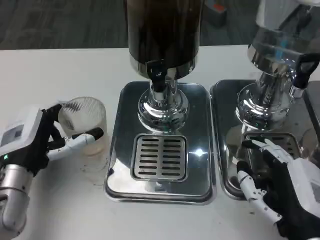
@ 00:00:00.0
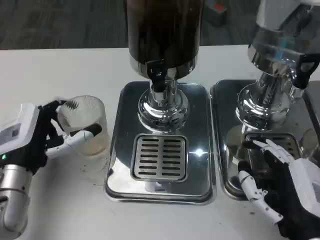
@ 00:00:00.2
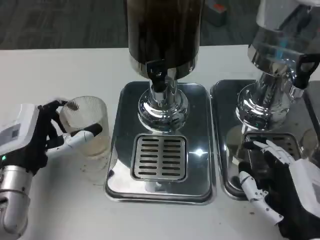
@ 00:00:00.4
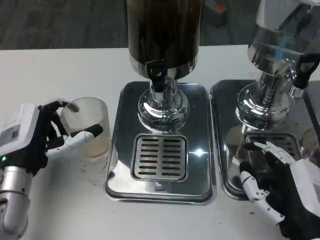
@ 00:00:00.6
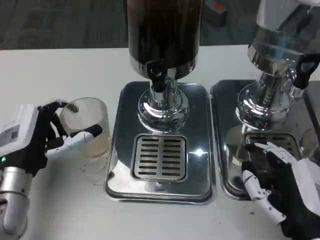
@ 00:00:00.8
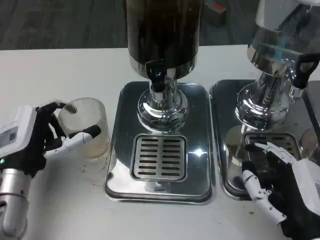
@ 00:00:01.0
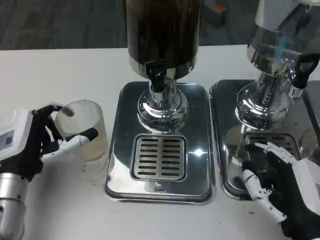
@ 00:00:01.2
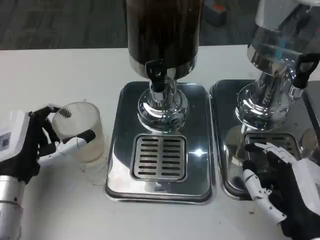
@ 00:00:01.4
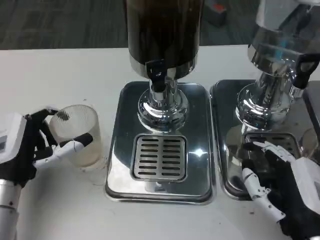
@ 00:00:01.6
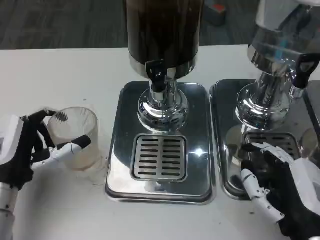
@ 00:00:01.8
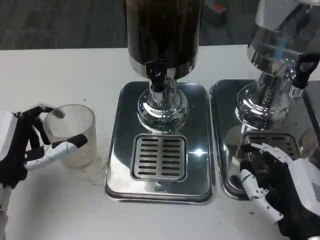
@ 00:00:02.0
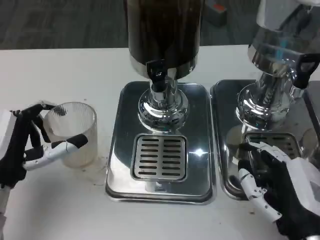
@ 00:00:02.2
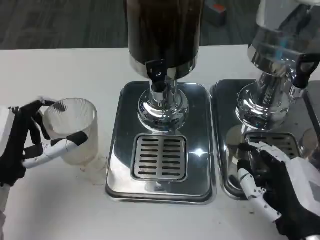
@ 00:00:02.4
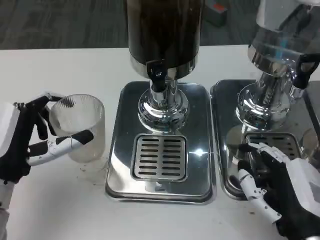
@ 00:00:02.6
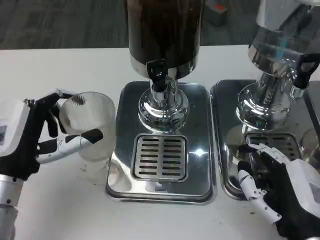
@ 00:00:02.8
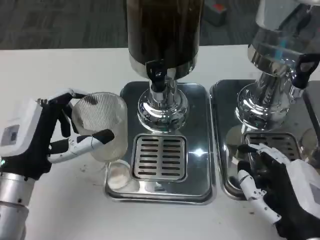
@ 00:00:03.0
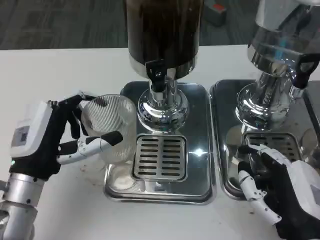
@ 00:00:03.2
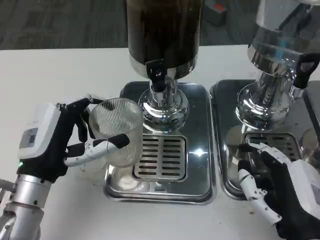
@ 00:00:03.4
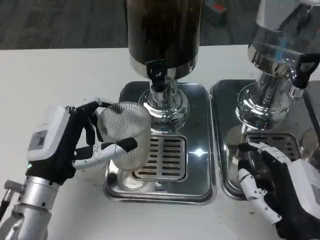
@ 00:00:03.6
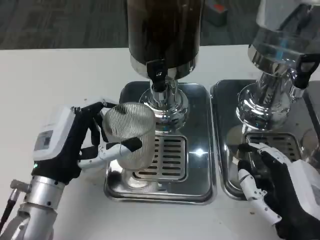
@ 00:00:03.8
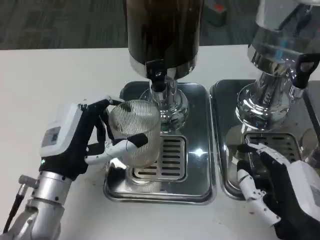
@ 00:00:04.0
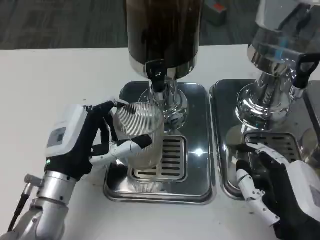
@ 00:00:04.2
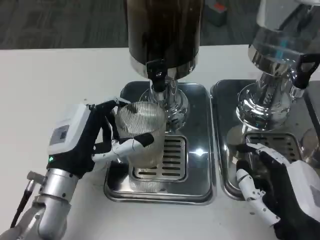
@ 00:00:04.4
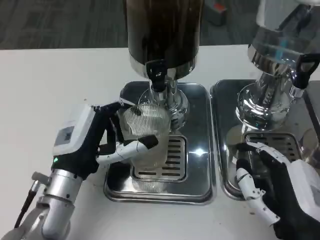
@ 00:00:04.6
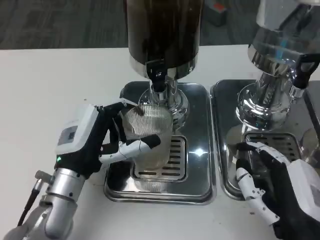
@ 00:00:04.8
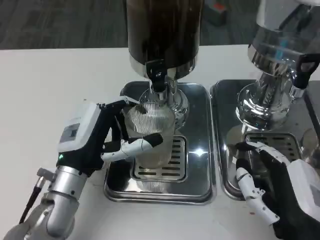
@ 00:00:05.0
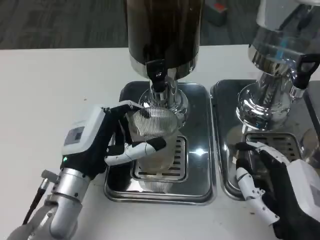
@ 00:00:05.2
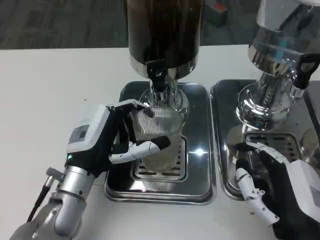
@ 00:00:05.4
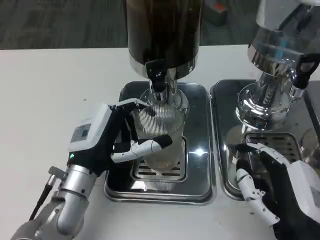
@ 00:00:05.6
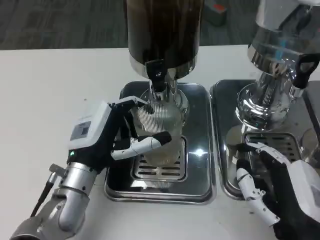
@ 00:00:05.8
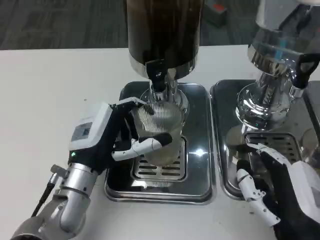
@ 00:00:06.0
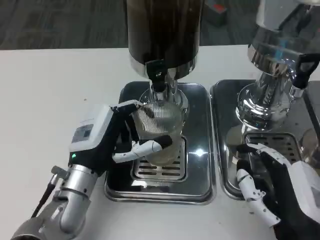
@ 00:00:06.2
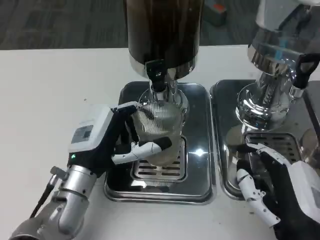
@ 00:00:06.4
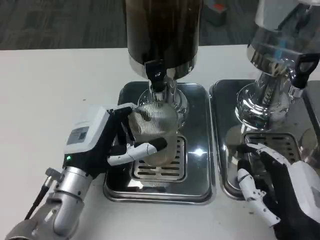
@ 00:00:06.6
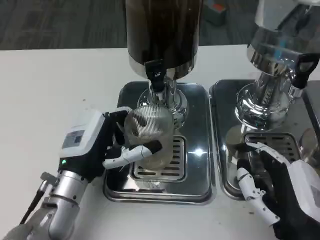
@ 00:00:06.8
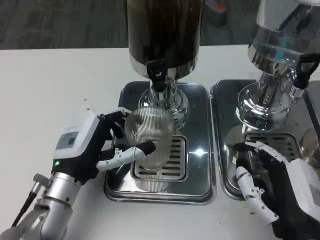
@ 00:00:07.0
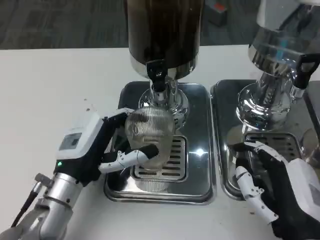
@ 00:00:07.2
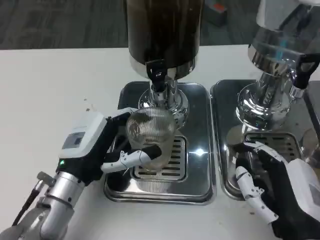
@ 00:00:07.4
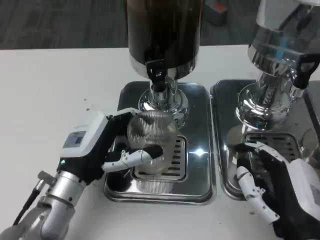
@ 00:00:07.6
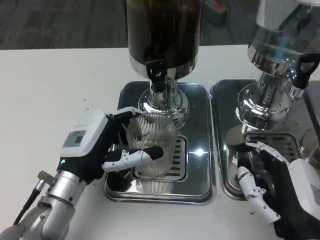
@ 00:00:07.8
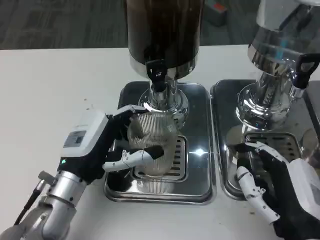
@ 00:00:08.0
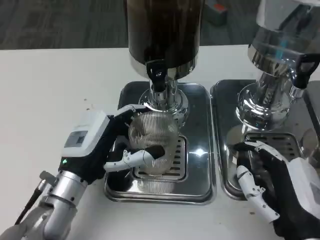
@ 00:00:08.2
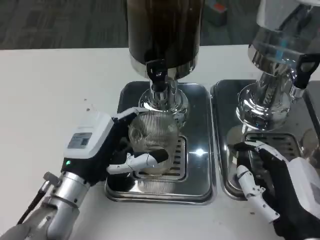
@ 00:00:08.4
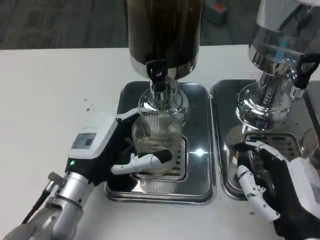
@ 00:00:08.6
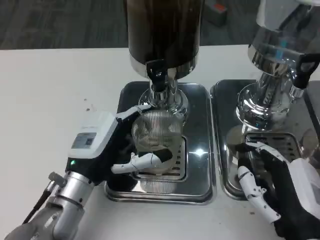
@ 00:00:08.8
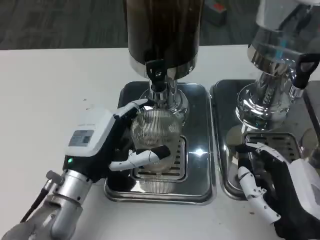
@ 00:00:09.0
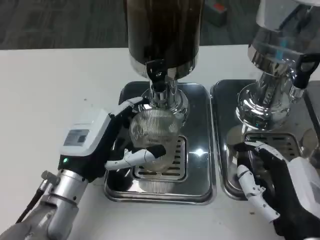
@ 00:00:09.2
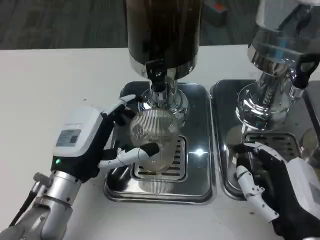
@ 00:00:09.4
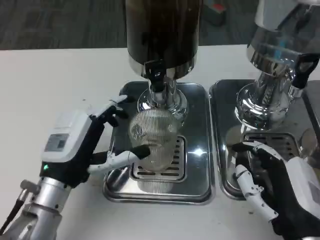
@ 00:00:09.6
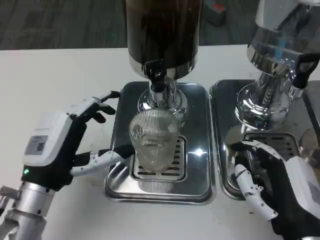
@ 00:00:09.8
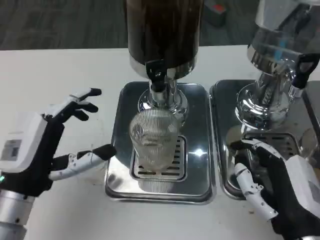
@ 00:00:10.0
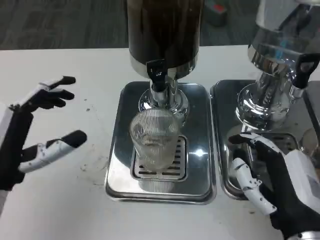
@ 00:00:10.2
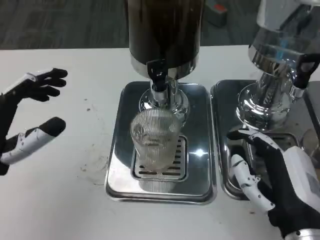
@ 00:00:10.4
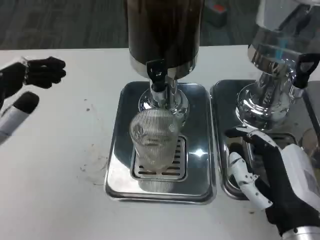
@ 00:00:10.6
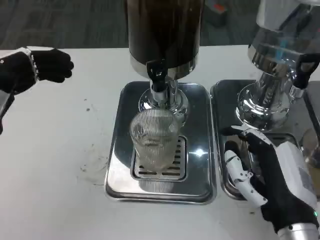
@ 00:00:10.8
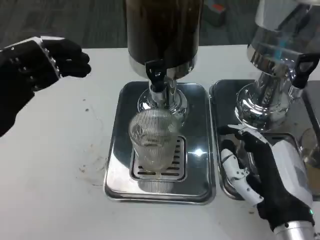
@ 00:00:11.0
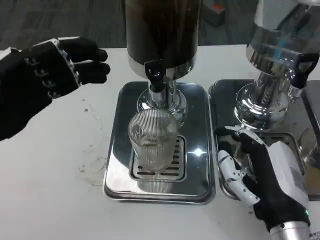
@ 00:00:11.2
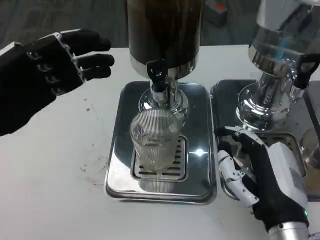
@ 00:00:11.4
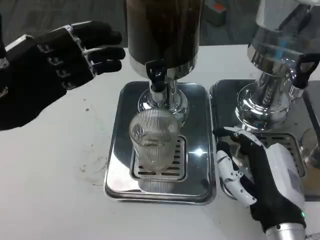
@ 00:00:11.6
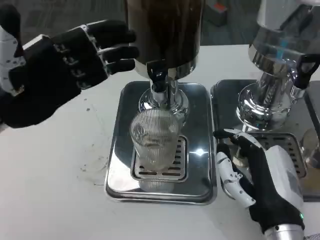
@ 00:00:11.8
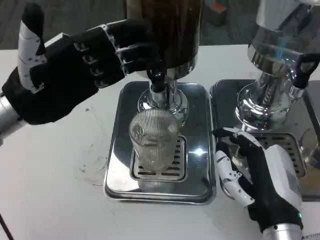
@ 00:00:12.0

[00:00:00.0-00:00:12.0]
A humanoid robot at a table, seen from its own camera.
Task of the whole recording: Grasp the cup under the faucet to collect the drink, then remove the cup.
00:00:00.0 to 00:00:01.6: The hands make only small movements.
00:00:01.6 to 00:00:03.0: The hands stay close to where they were, moving slightly.
00:00:03.0 to 00:00:04.4: The left hand heads to the right, covering approximately 5 cm.
00:00:04.4 to 00:00:09.0: The hands stay close to where they were, moving slightly.
00:00:09.0 to 00:00:10.4: The left hand travels to the left and upward by about 10 cm.
00:00:10.4 to 00:00:12.0: The left hand goes about 10 cm forward and upward.

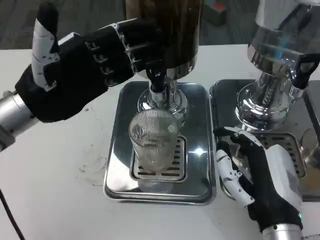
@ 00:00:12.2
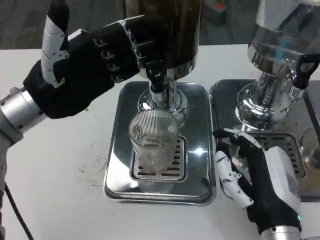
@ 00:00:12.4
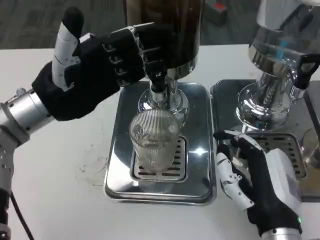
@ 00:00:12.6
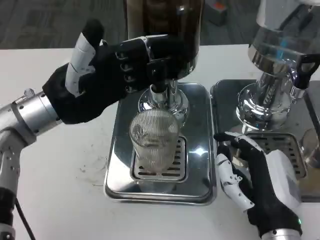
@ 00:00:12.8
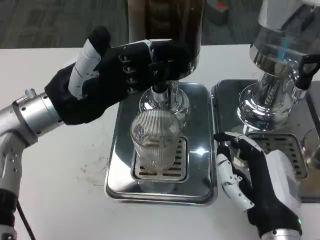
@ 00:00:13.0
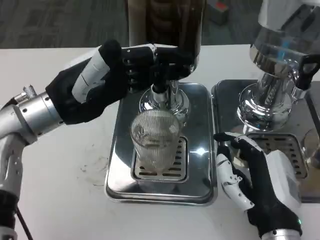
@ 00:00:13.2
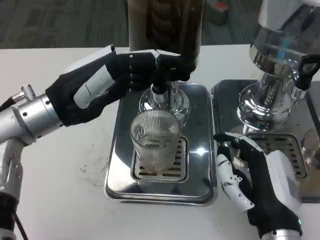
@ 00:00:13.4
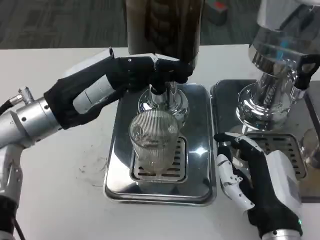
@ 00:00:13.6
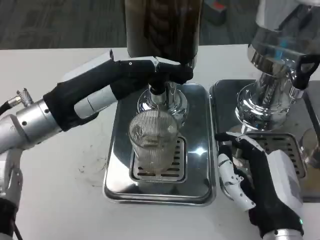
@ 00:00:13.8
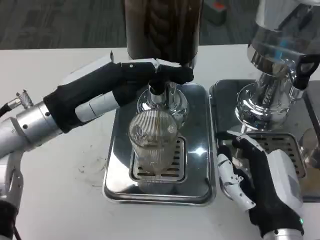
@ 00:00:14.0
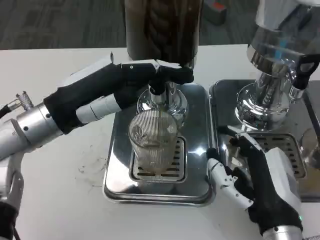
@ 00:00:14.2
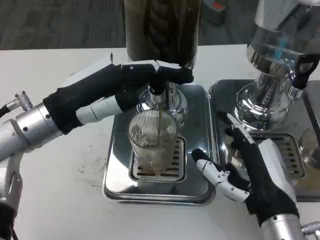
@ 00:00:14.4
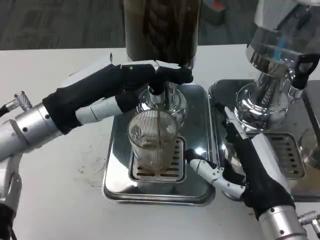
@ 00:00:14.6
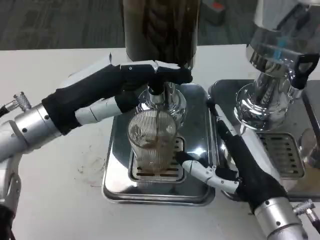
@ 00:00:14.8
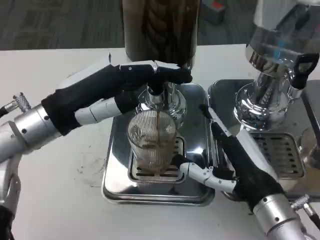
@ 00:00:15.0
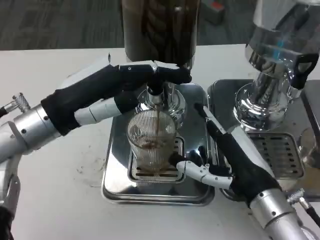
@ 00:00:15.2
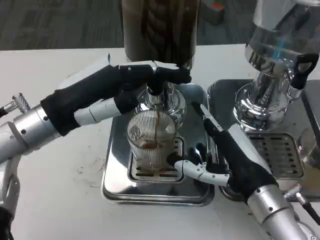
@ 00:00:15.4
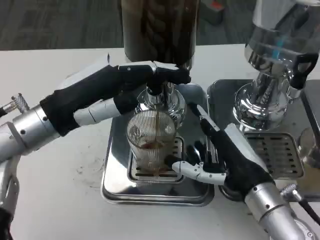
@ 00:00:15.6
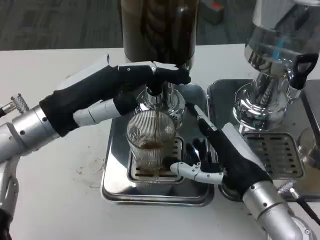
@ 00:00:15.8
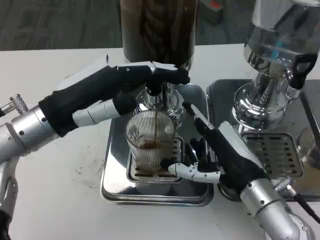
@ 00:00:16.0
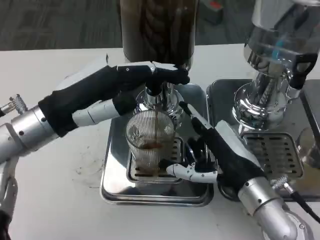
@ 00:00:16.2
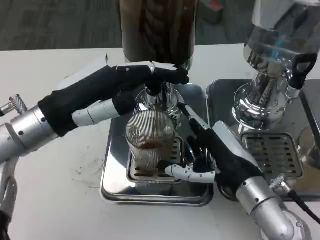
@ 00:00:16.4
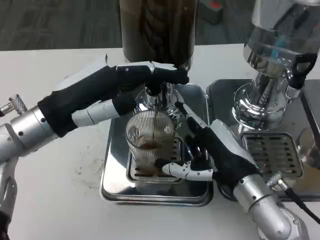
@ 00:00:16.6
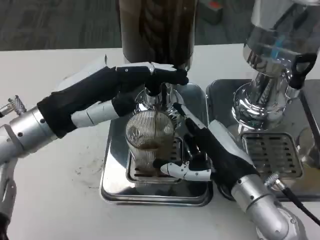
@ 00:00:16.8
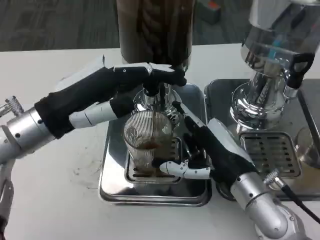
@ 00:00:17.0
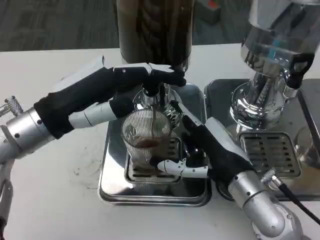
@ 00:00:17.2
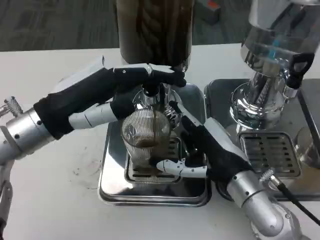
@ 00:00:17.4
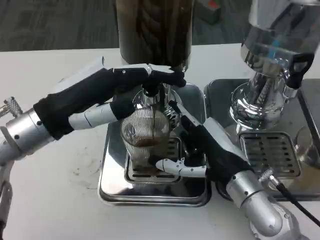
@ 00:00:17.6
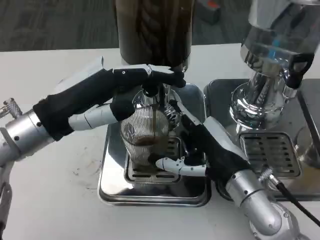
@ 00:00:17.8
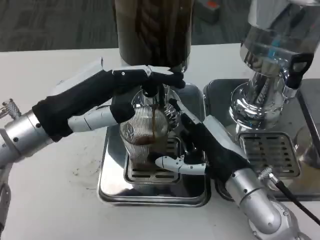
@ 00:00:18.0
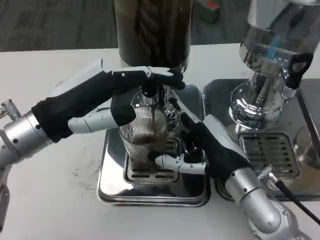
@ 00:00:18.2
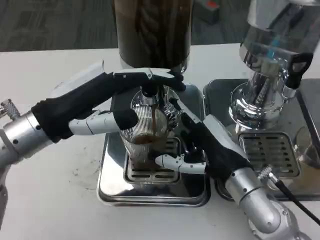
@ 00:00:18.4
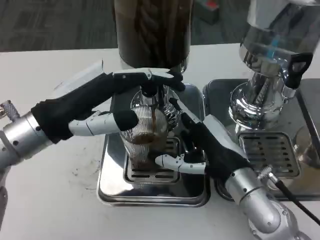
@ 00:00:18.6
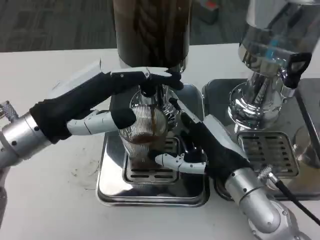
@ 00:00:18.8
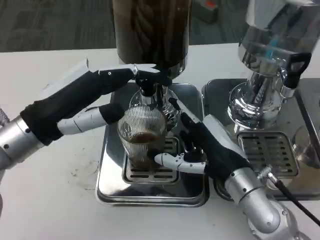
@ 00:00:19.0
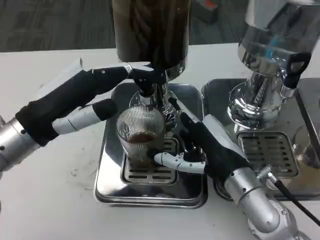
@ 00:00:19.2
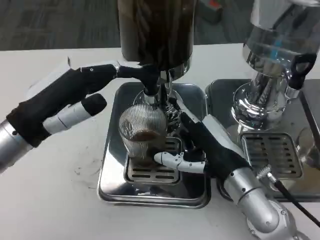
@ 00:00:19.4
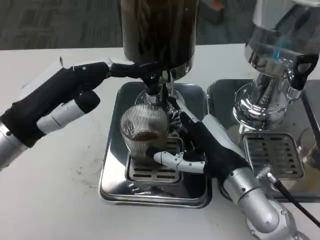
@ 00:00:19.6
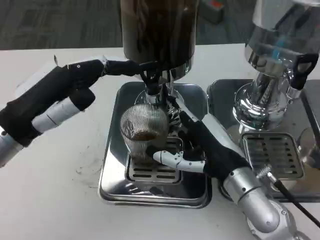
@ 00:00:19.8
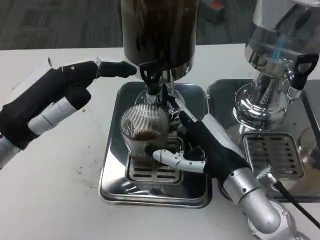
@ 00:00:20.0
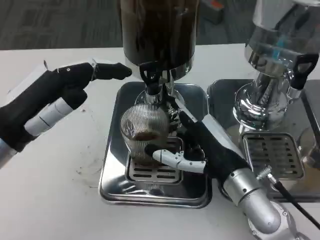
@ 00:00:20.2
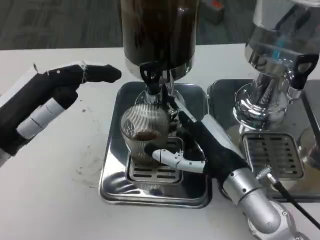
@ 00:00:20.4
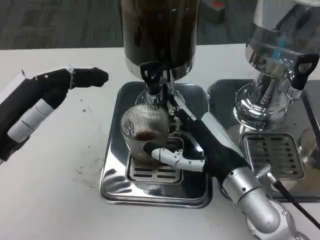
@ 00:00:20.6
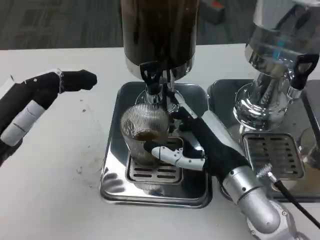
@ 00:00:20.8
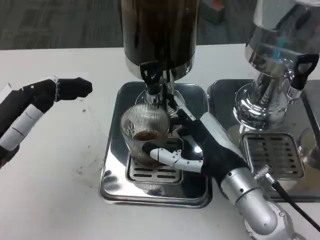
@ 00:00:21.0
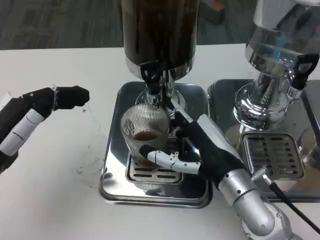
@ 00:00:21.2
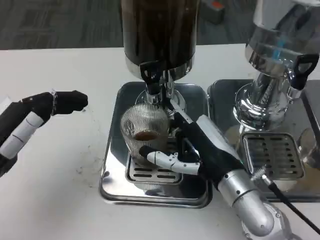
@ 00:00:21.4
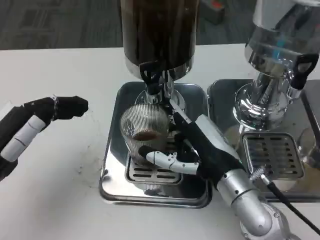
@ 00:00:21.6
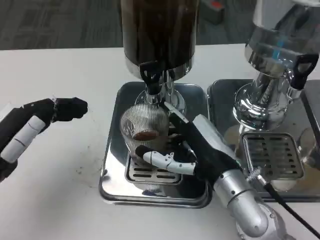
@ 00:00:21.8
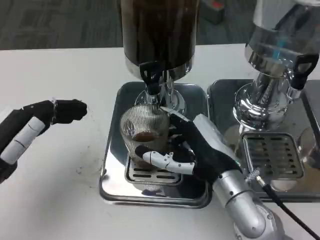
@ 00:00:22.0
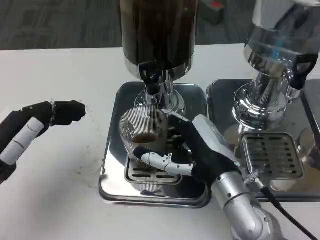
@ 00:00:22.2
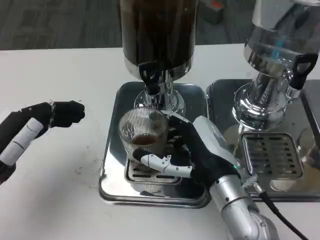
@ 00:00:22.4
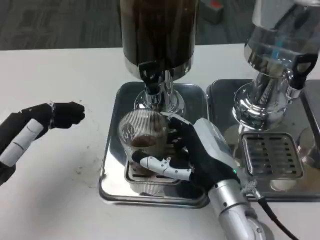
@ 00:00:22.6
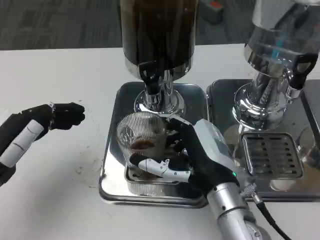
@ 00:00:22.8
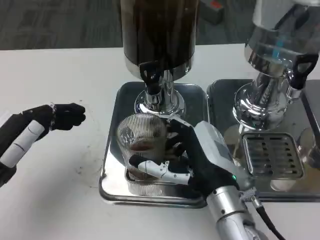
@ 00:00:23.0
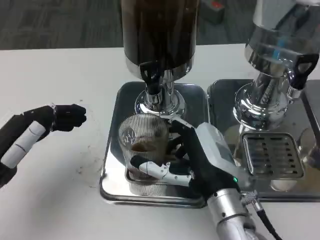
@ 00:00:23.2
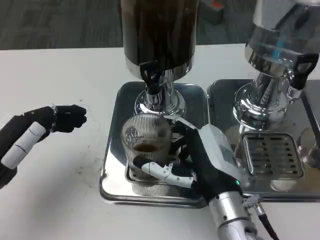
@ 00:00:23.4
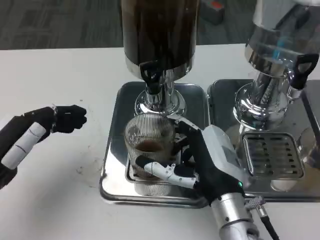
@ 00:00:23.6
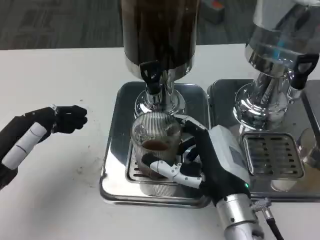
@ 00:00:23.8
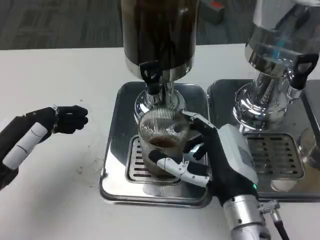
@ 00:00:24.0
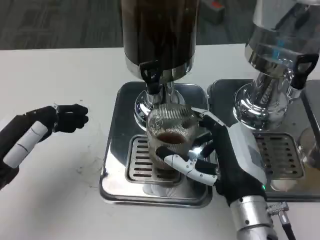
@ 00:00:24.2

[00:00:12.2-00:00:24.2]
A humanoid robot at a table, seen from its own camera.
Task of the whole recording: Grasp the cup under the faucet to collect the drink, then remove the cup.
00:00:13.8 to 00:00:15.2: The right hand moves forward, about 5 cm.
00:00:15.2 to 00:00:16.6: The hands move only a little.
00:00:19.8 to 00:00:21.2: The left hand moves roughly 5 cm.
